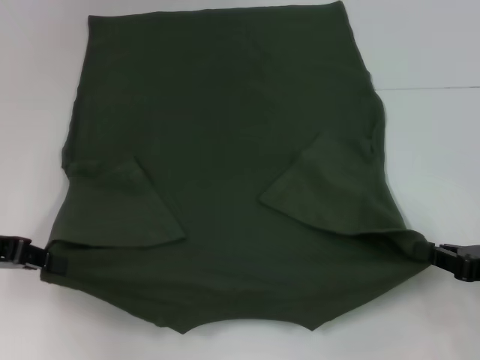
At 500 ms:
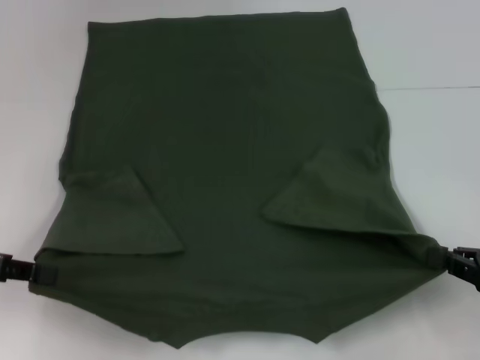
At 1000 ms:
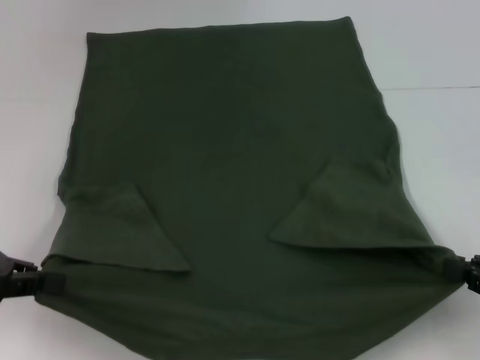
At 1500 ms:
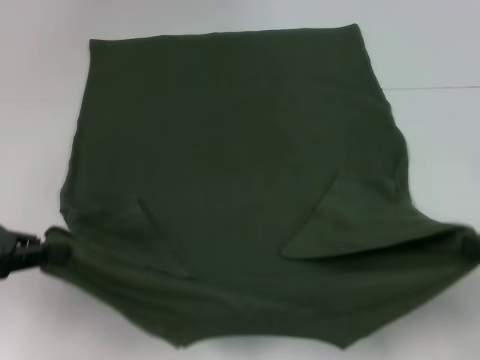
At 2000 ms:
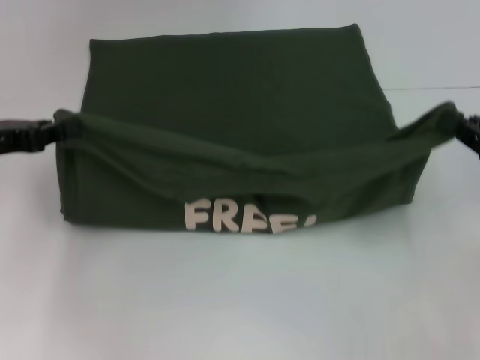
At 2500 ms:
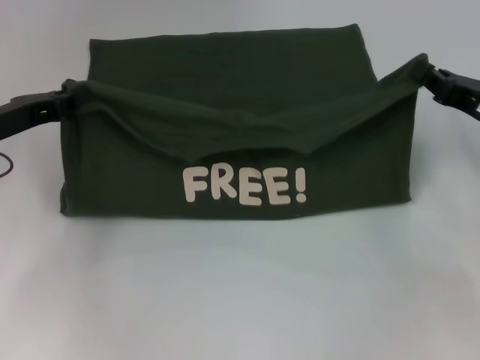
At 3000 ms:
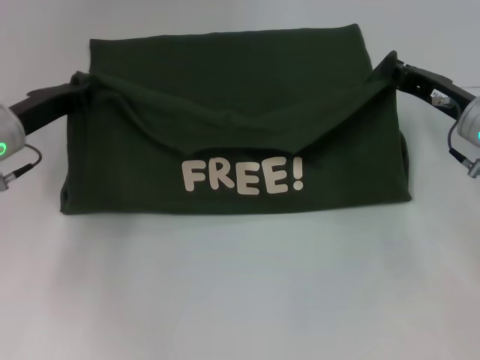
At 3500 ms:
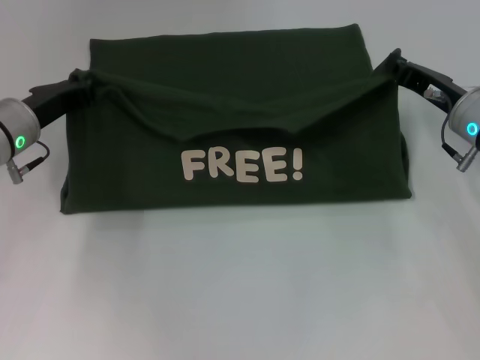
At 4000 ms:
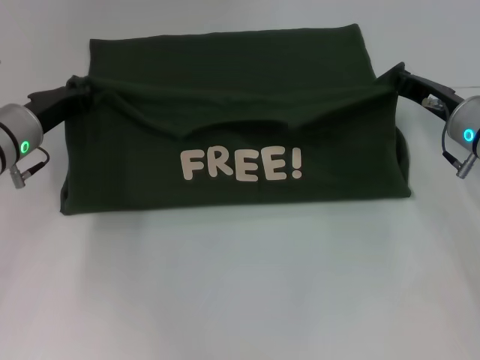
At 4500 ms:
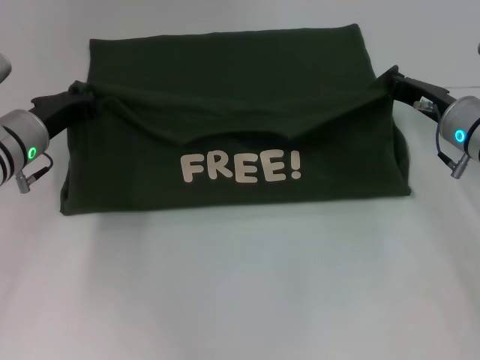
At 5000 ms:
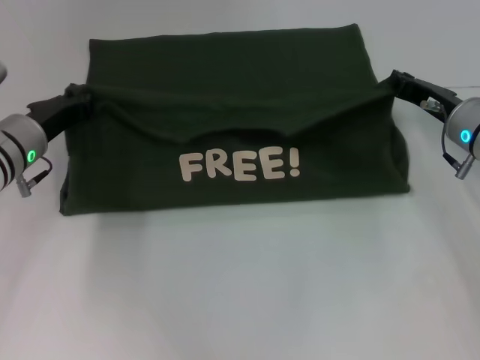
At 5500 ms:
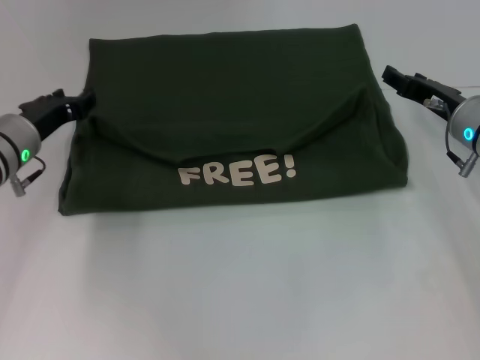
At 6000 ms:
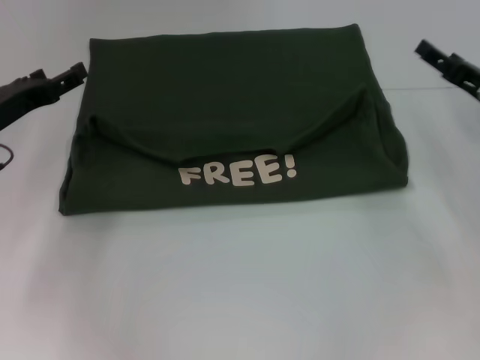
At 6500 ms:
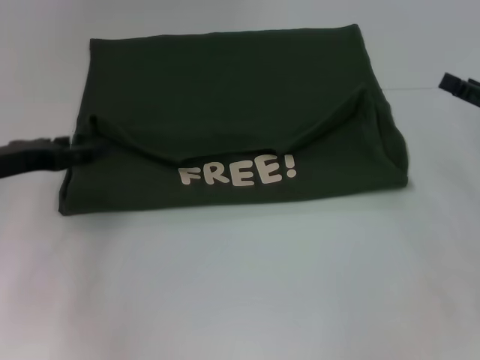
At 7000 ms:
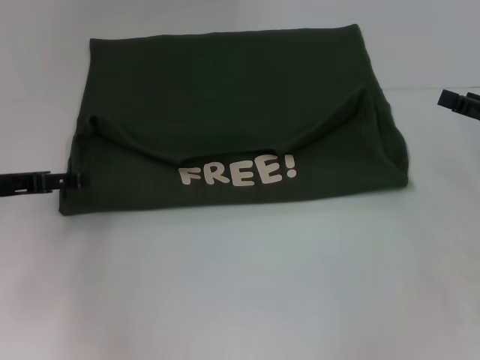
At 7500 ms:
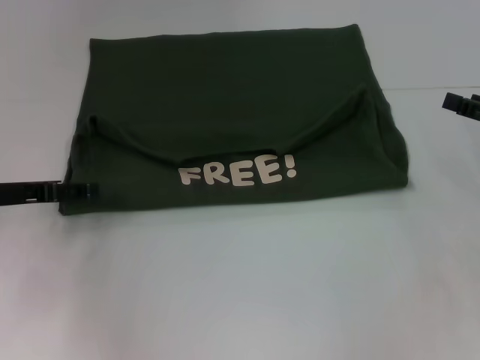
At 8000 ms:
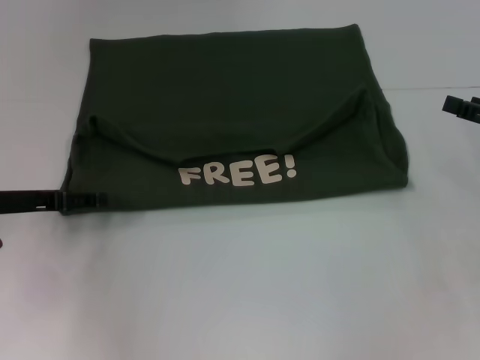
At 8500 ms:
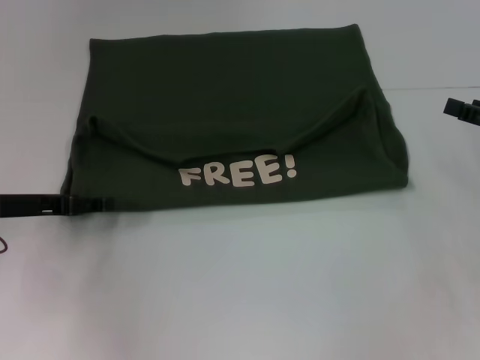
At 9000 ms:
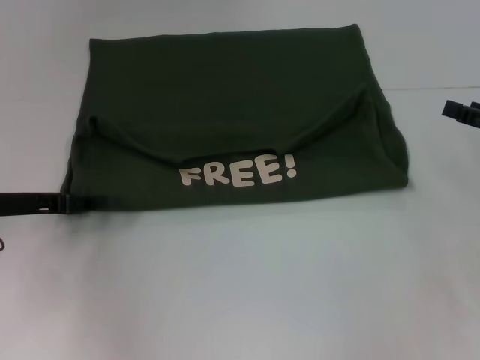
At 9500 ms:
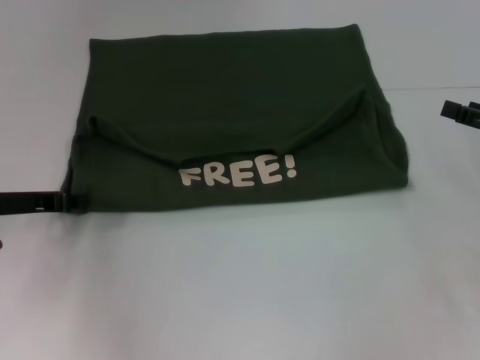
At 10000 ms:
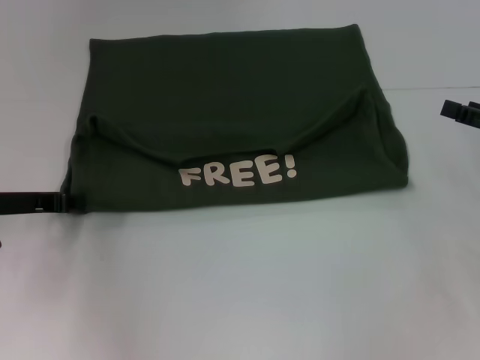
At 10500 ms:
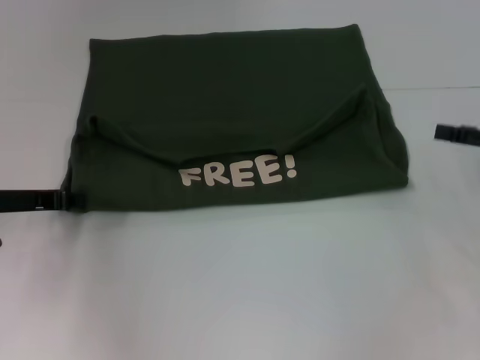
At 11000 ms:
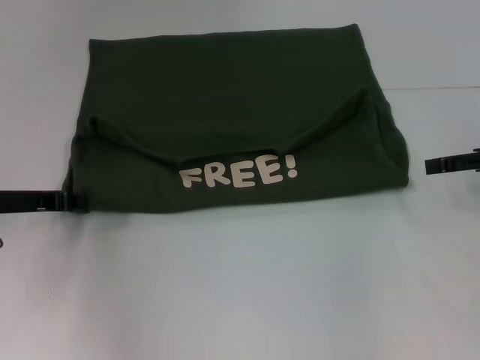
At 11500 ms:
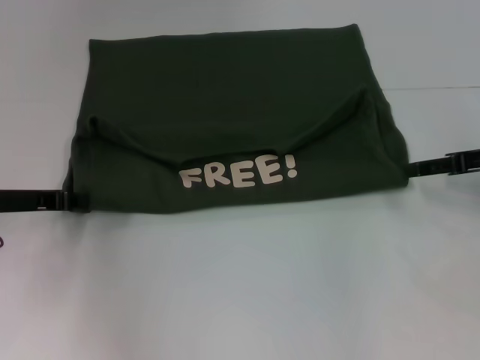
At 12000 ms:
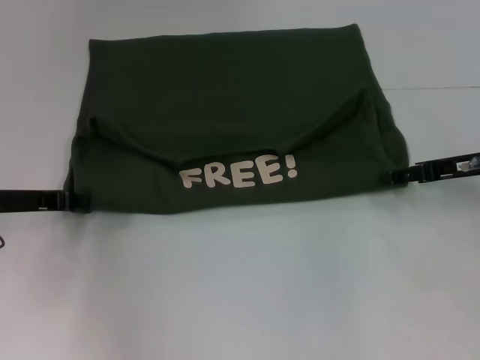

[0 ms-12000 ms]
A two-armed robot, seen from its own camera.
Step, 0 ms to 5500 ms: Fold the clothes with your left hand.
Step, 0 ms to 5500 ms: Fold the clothes with your right hand.
0 ms to 2000 ms: The right gripper heads upward, covering some 5 cm.
2000 ms to 4000 ms: The right gripper is displaced forward and to the left by approximately 15 cm. The left gripper moves to the right, forward and downward, about 10 cm.
4000 ms to 6000 ms: The left gripper shifts by some 5 cm, and opens up; the right gripper moves some 5 cm, and opens up.
6000 ms to 8000 ms: The right gripper heads to the right, covering approximately 5 cm.
10000 ms to 12000 ms: The right gripper shifts approximately 5 cm to the left.

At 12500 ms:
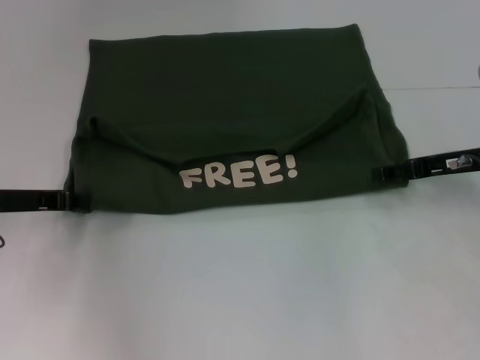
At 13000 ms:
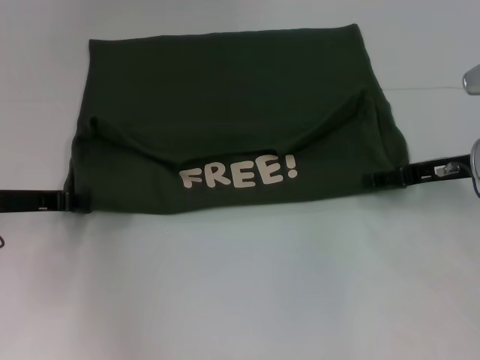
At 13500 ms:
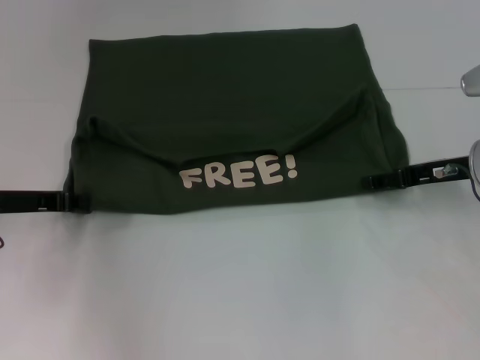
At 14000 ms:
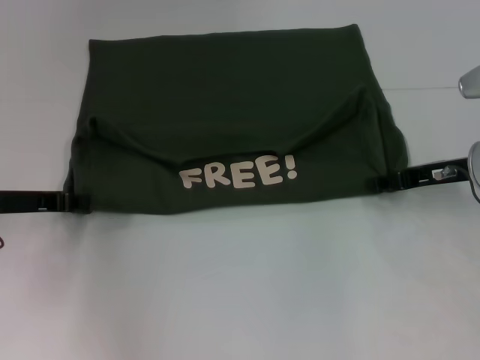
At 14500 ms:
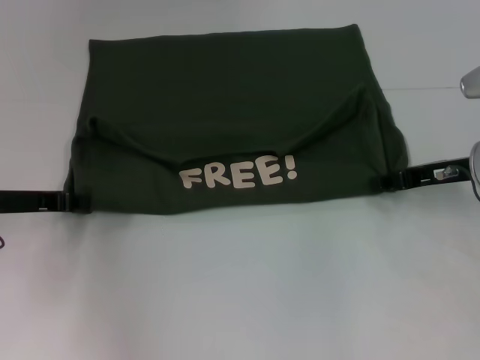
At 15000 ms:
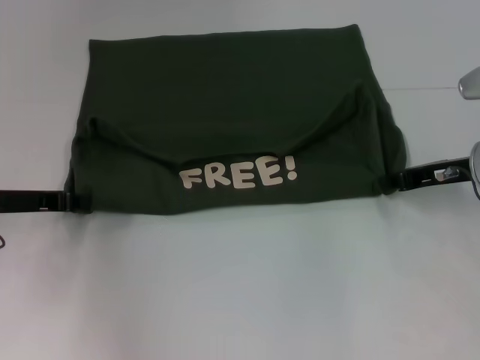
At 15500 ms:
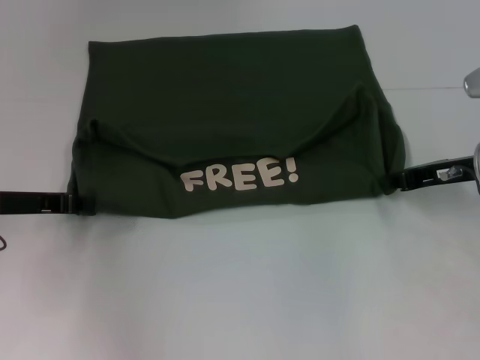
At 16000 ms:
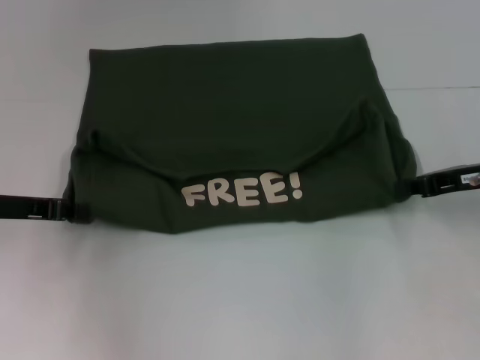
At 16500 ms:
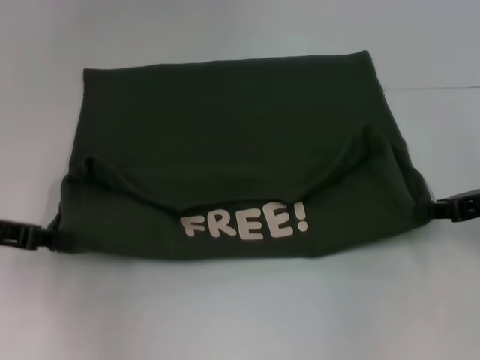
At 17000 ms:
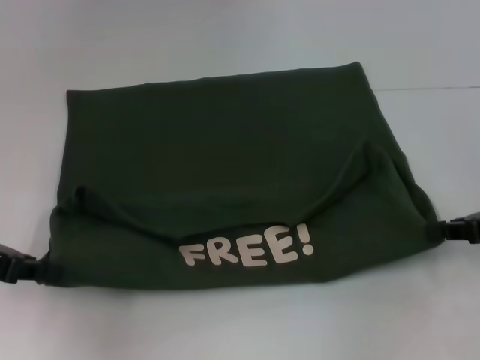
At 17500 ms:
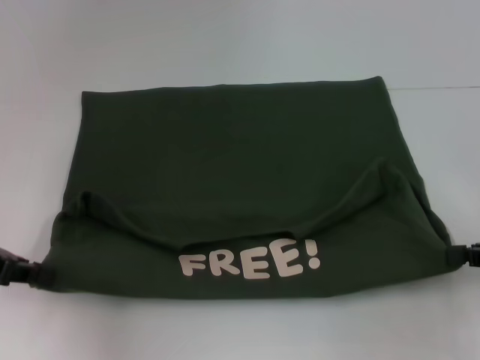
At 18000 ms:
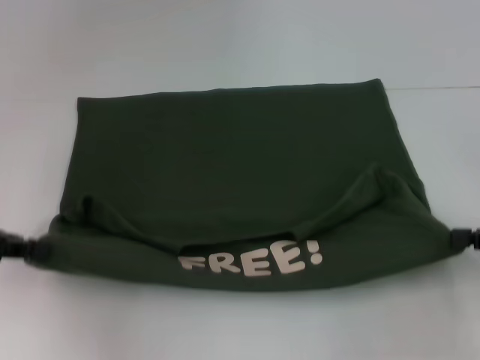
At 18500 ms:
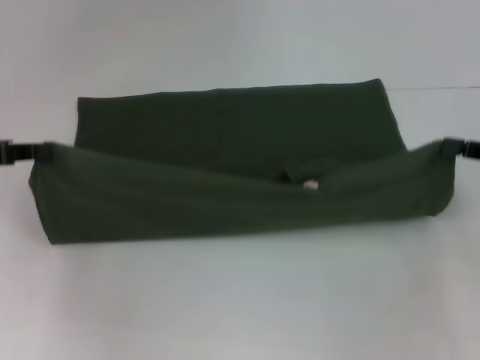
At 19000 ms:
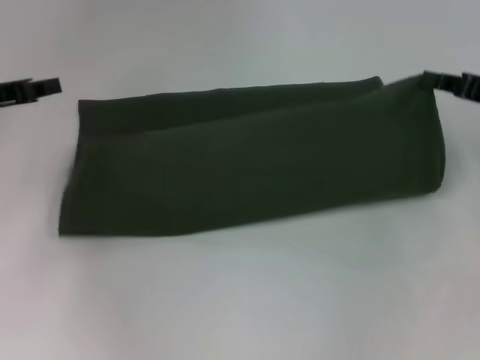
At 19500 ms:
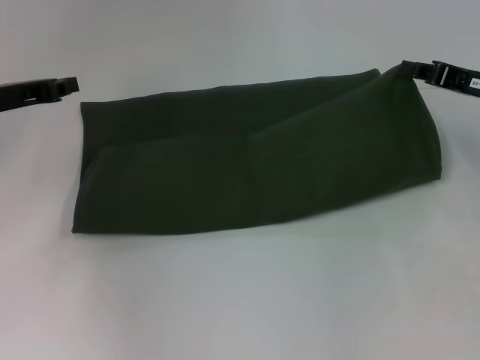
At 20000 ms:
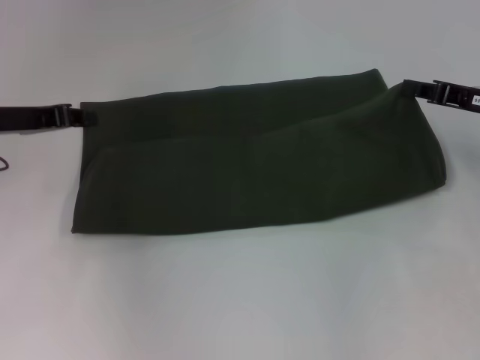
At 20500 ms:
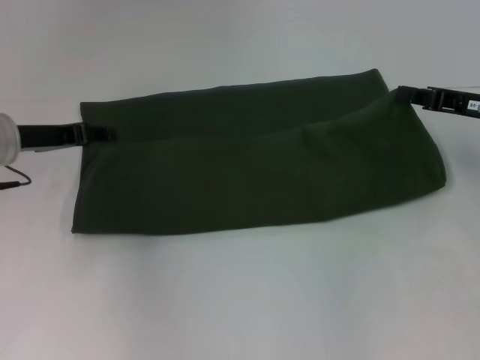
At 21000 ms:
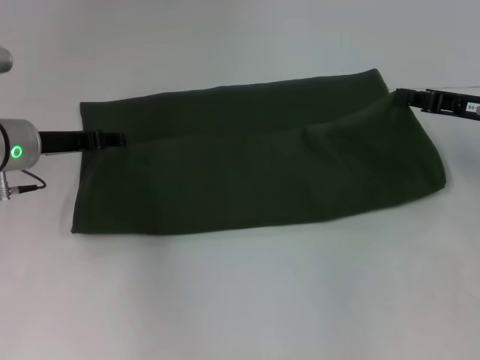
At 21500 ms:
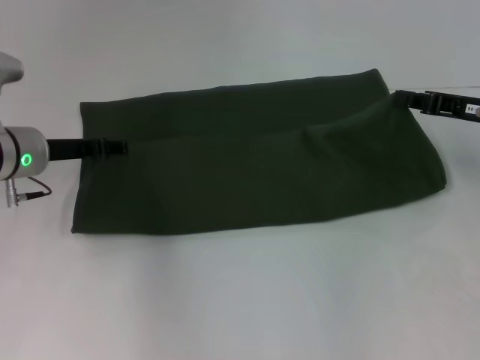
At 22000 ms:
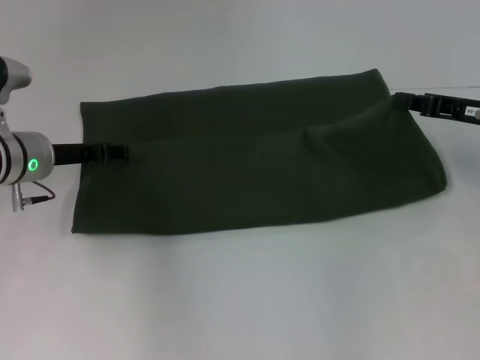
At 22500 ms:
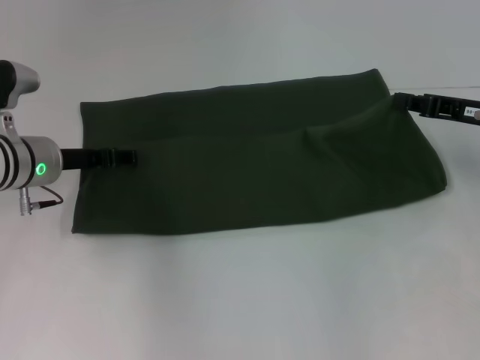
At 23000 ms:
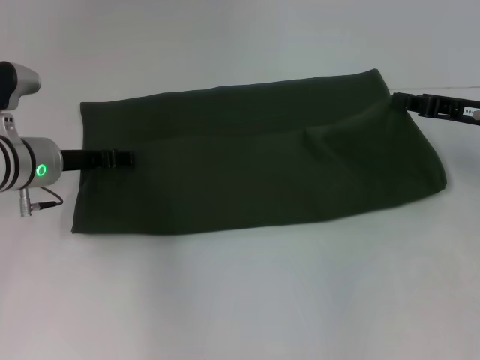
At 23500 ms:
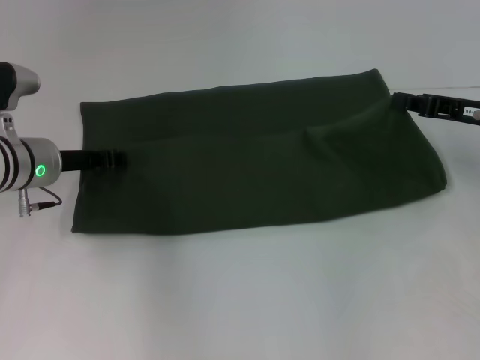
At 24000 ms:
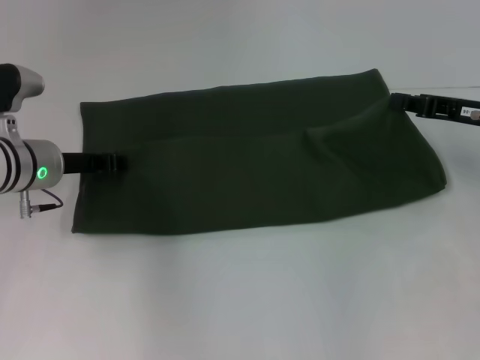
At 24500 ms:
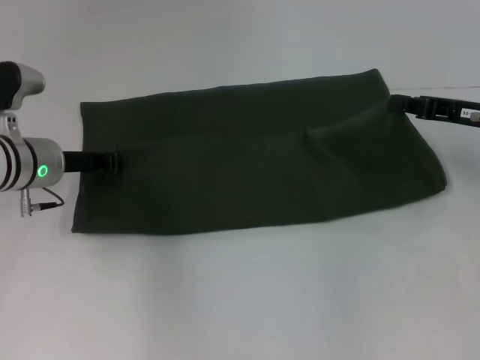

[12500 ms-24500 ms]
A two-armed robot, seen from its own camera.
Step, 12500 ms to 17500 ms: Pull the clothes with your left hand.
Step, 12500 ms to 17500 ms: Pull the clothes with your right hand.
12500 ms to 14500 ms: The right gripper closes up.
14500 ms to 16500 ms: The left gripper moves some 5 cm, while the right gripper moves backward, roughly 5 cm, and closes its fingers.
16500 ms to 18500 ms: The left gripper moves about 5 cm.
18500 ms to 20500 ms: The left gripper heads to the right and forward, covering some 10 cm, and opens. The right gripper is displaced forward by some 5 cm.
20500 ms to 22500 ms: The left gripper moves some 5 cm.
22500 ms to 24500 ms: The left gripper closes its fingers.

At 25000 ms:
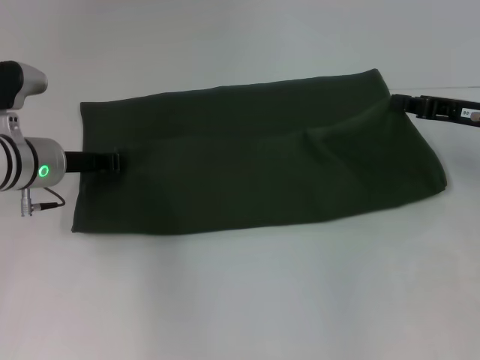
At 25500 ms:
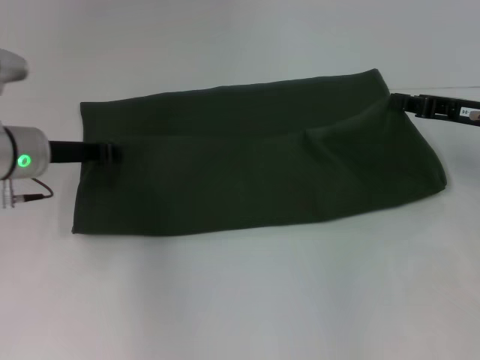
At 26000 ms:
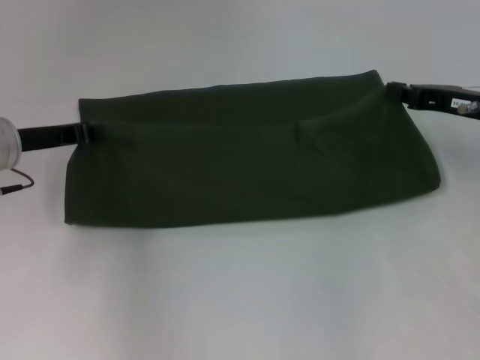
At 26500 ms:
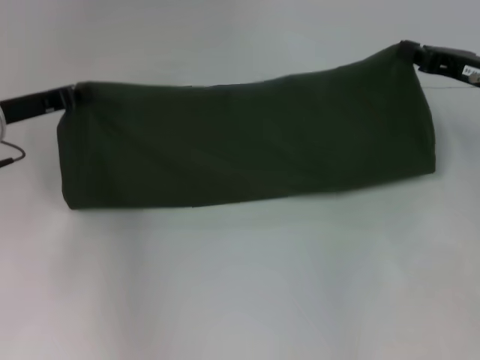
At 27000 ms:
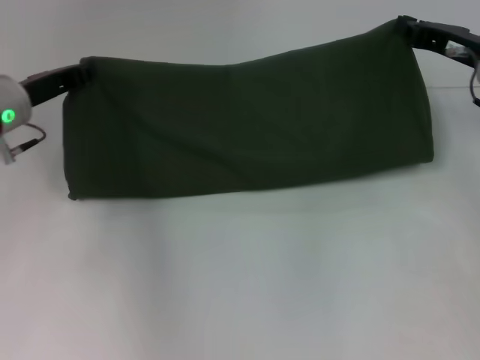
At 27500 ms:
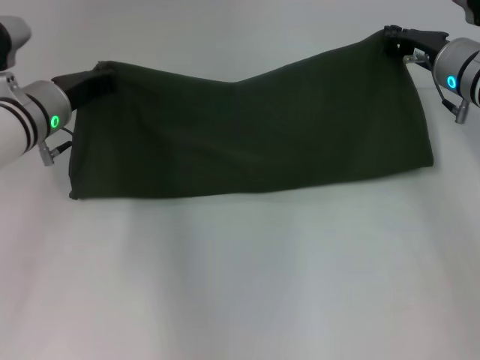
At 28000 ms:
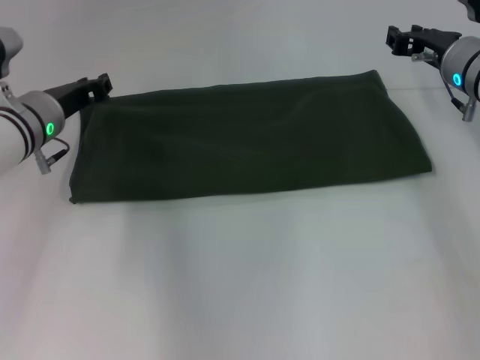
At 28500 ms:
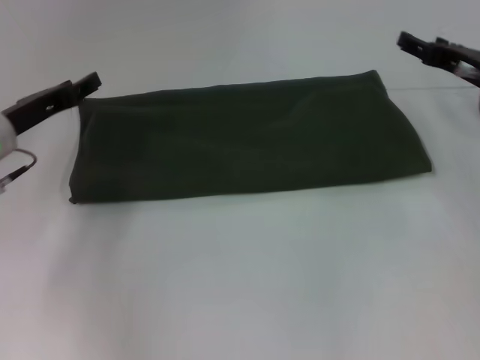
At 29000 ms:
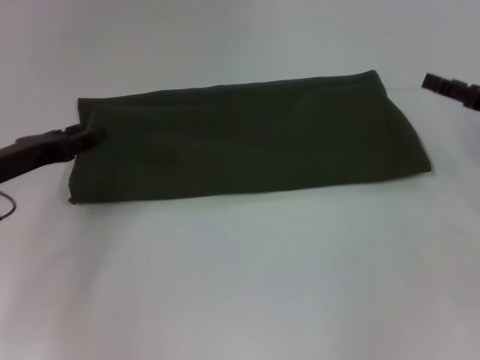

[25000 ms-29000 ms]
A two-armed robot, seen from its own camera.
Step, 25000 ms to 28000 ms: Fold the clothes with your left hand.
Step, 25000 ms to 28000 ms: Fold the clothes with your right hand.
25000 ms to 27000 ms: The left gripper moves about 5 cm. Meanwhile the right gripper ends up some 5 cm from where it was.
27000 ms to 29000 ms: The right gripper goes about 10 cm to the right and backward, and opens. The left gripper is displaced backward by about 5 cm, and opens its fingers.
